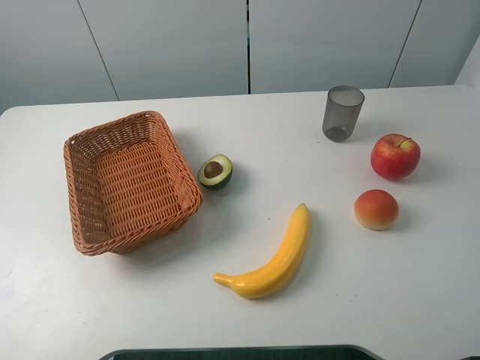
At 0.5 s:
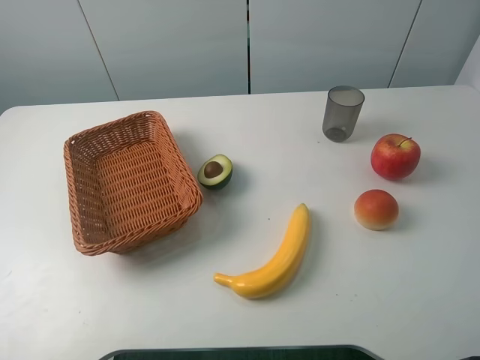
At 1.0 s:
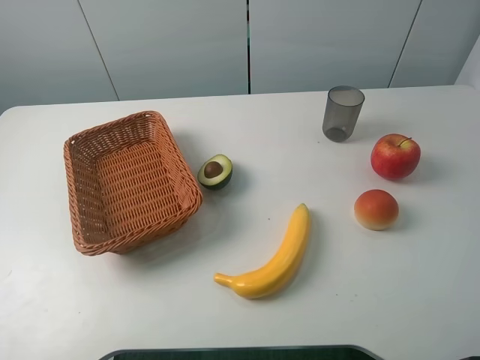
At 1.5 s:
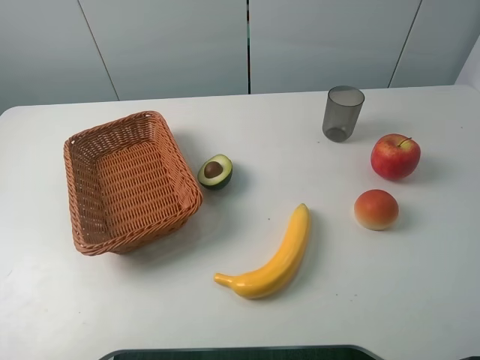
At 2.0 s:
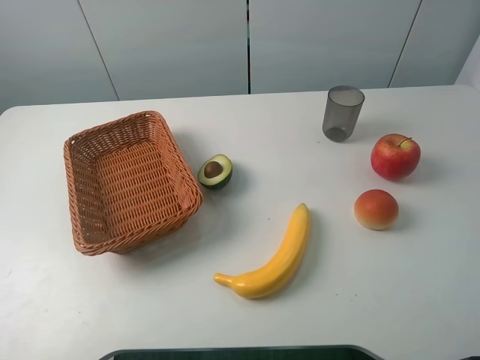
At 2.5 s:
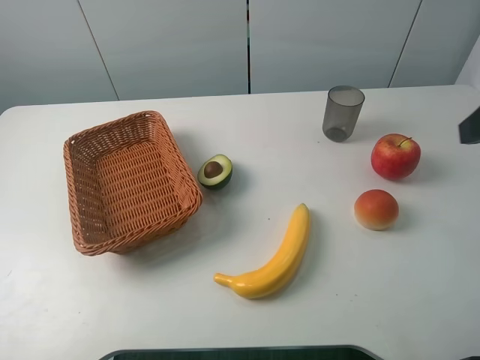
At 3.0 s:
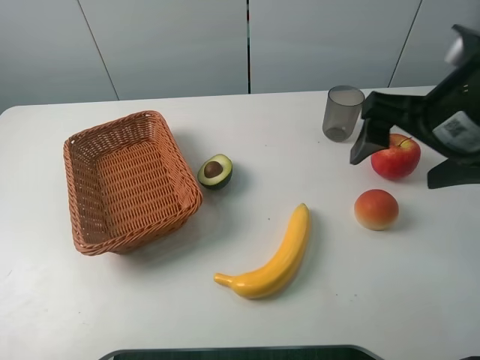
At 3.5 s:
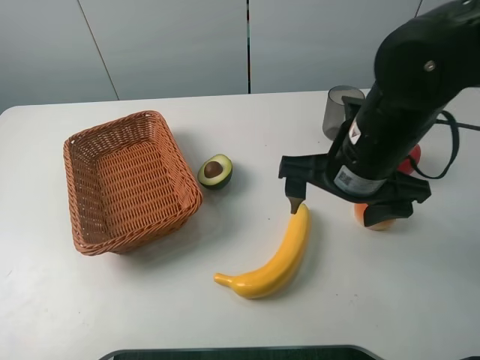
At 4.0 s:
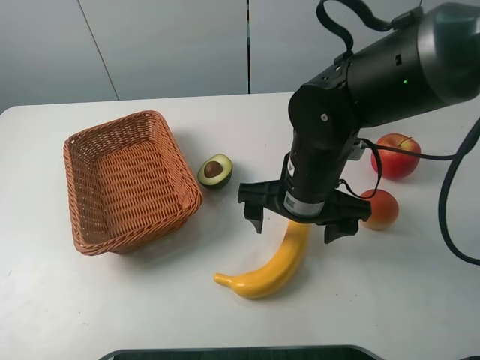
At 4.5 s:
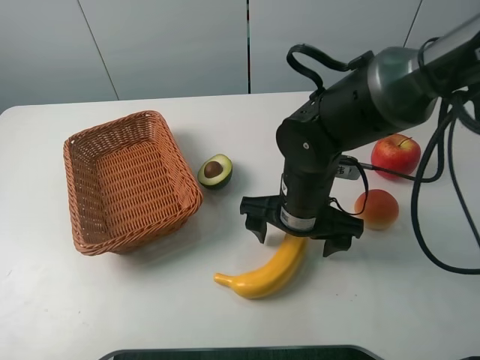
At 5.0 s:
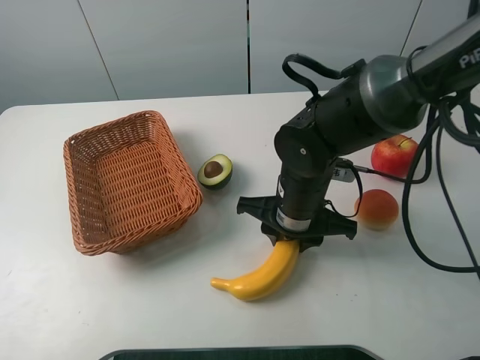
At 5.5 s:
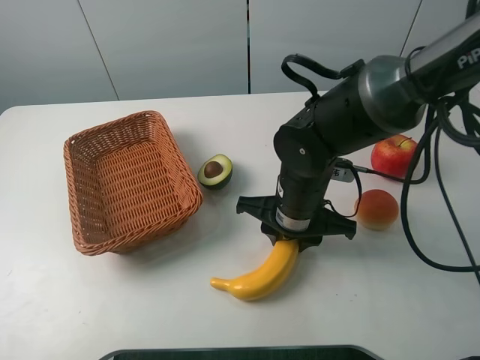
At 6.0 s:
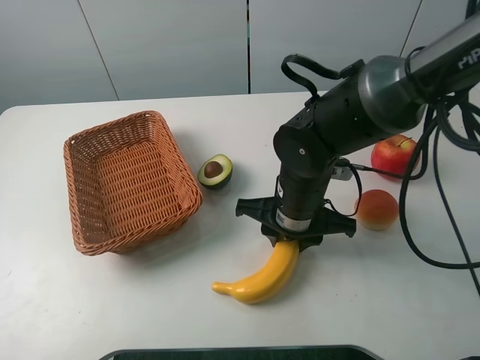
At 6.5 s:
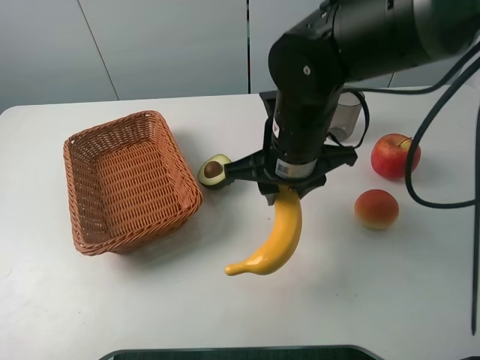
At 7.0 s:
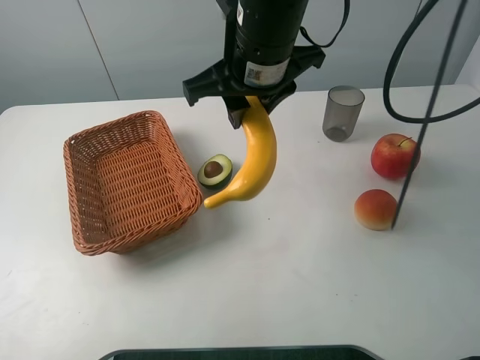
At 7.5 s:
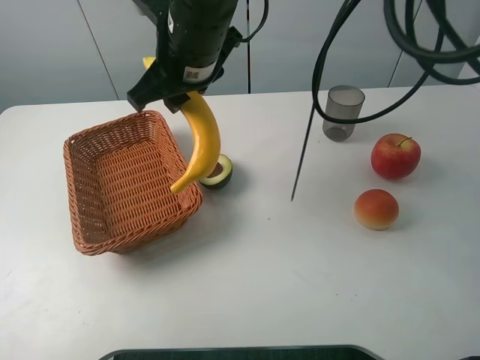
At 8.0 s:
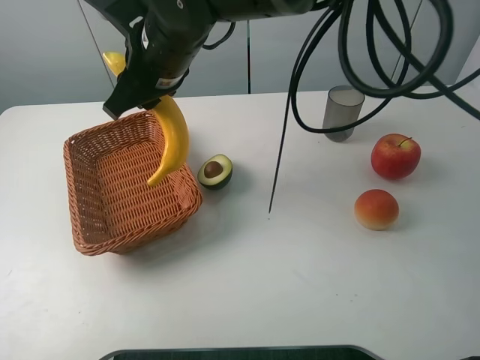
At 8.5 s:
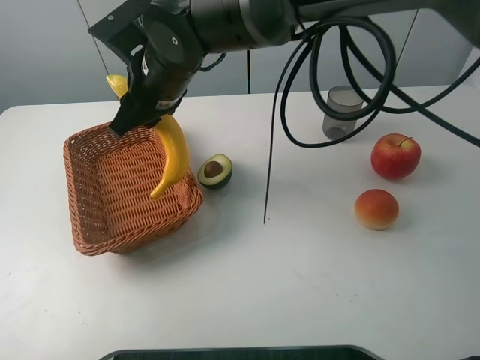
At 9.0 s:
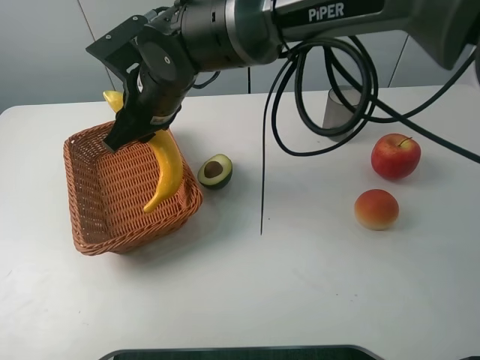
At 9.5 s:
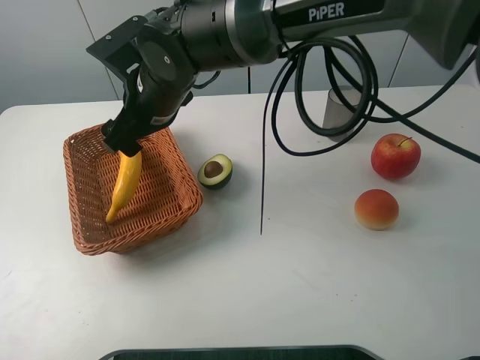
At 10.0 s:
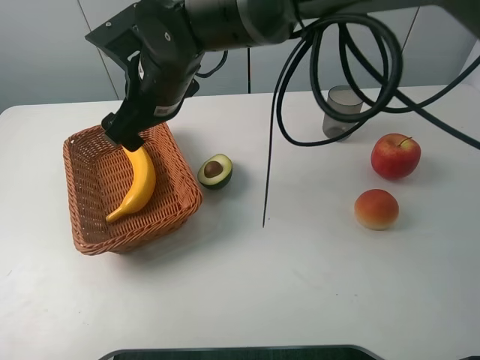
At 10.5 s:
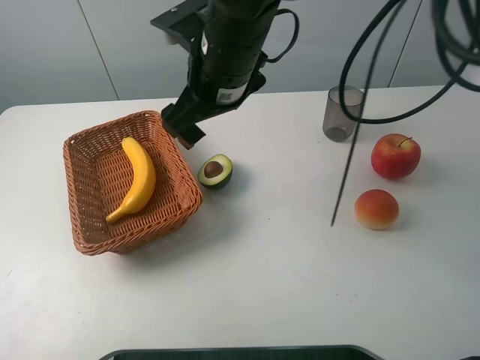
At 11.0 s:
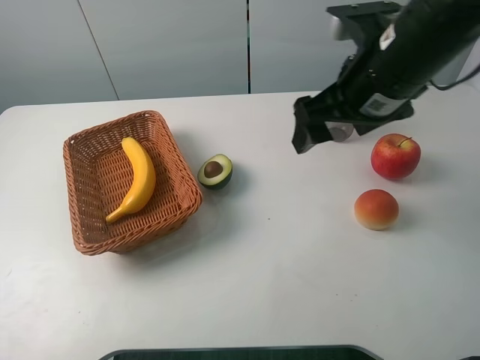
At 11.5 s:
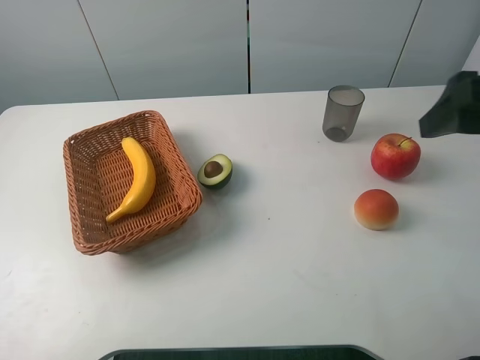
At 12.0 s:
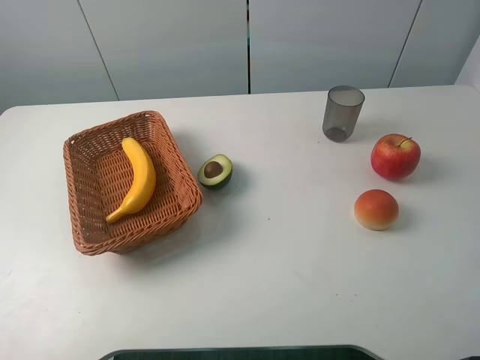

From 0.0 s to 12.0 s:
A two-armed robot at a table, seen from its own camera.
Task of the whole recording: randomly pick up an item from the table and put it in the basket.
Step, from 0.0 s to 6.0 s: Grasp the banana with the right gripper.
Step, from 6.5 s to 10.0 s: Place the banana into the basket with the right gripper.
From 2.0 s to 4.0 s: The right gripper shifts about 35 cm to the left, forward and downward.
From 4.0 s to 6.0 s: The right gripper closes.
From 6.0 s to 8.0 s: The right gripper moves to the left, upward and forward, approximately 20 cm.
From 8.0 s to 10.0 s: The right gripper opens its fingers.
From 10.0 s to 12.0 s: The right gripper shifts roughly 40 cm to the right and backward.

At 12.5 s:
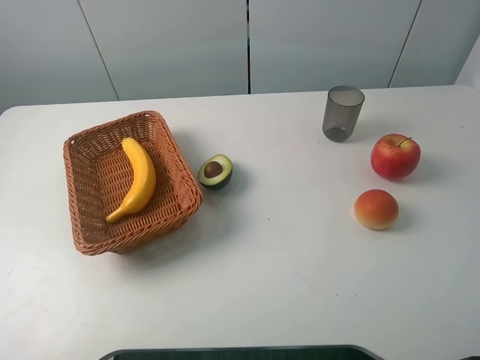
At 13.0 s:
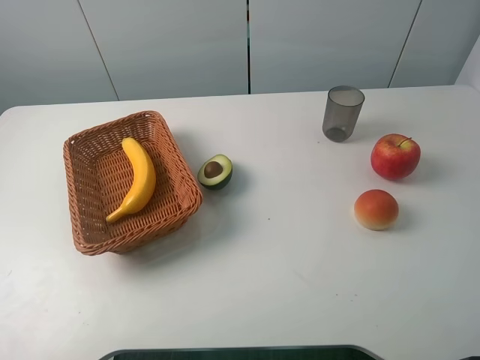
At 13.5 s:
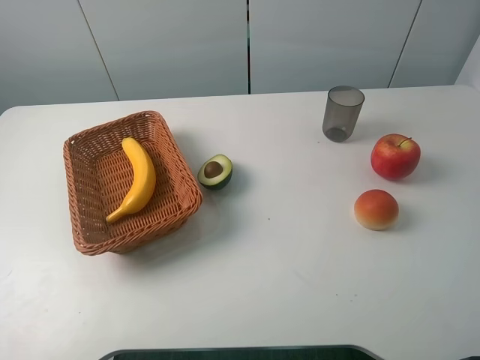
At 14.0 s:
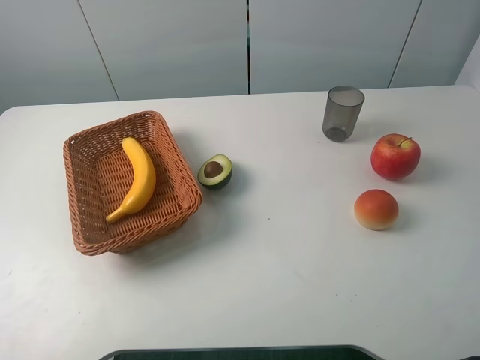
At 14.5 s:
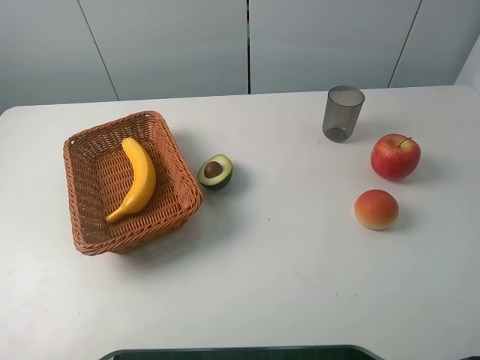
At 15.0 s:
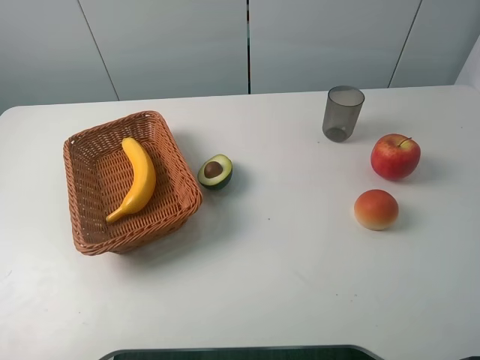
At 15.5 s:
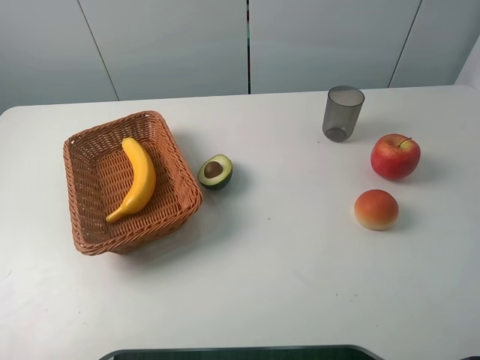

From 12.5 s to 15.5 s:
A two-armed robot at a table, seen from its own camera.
Task of the whole recording: randomly pick up an item from the table and put it in the basket.
From 14.0 s to 15.5 s: Neither gripper changes place.

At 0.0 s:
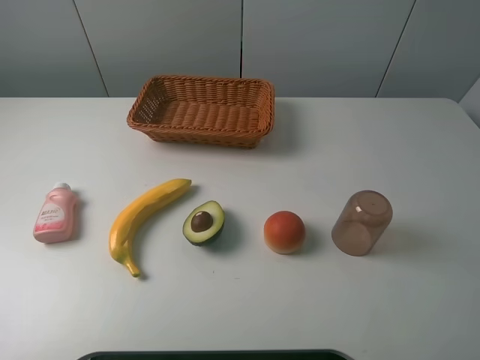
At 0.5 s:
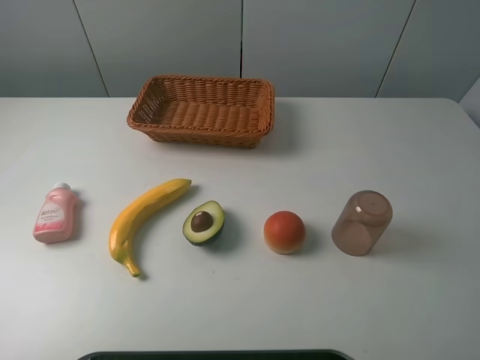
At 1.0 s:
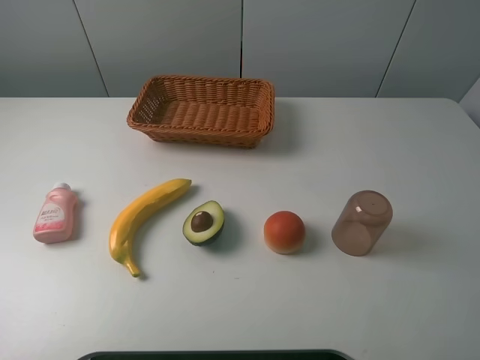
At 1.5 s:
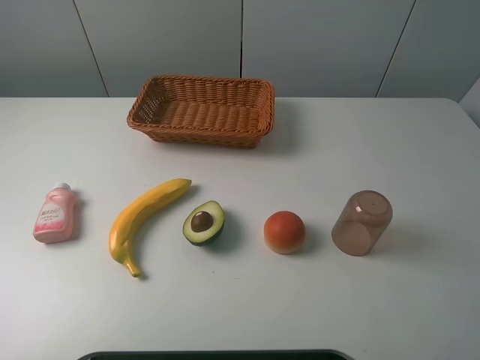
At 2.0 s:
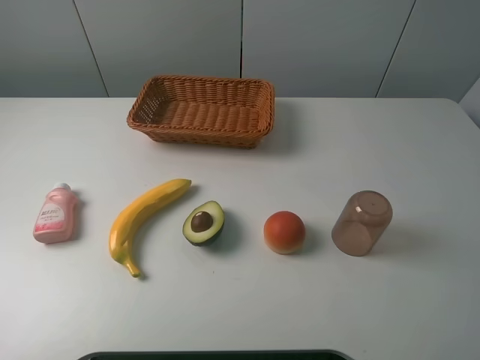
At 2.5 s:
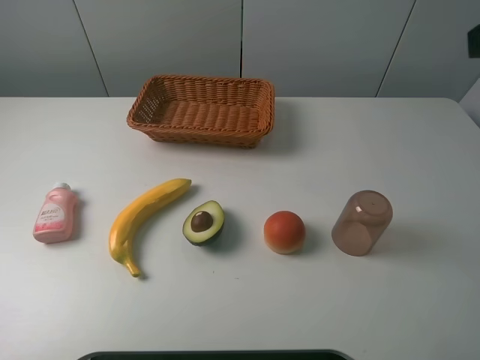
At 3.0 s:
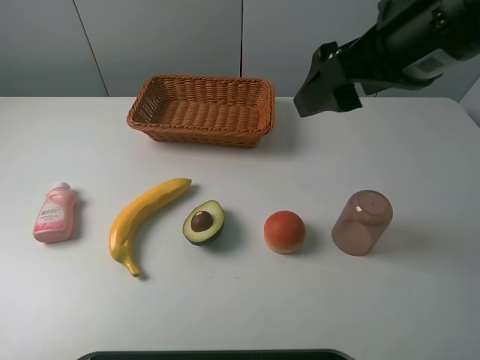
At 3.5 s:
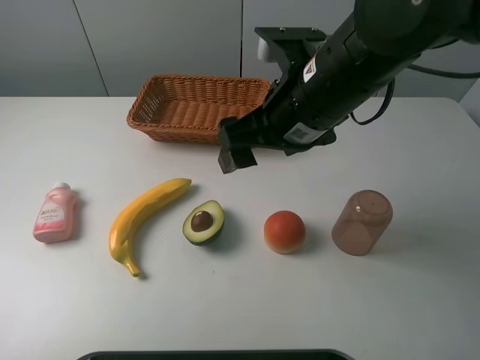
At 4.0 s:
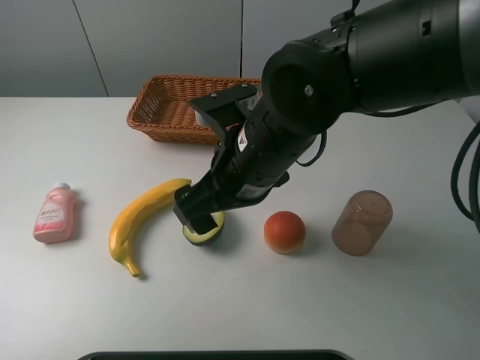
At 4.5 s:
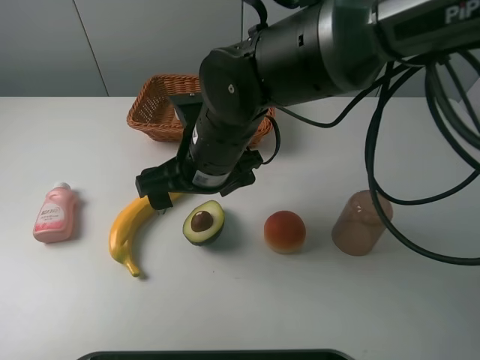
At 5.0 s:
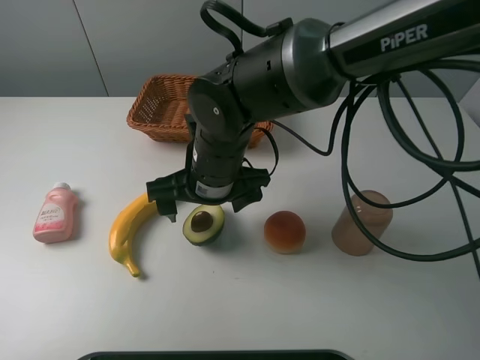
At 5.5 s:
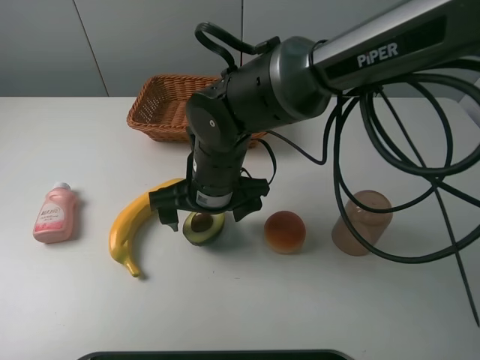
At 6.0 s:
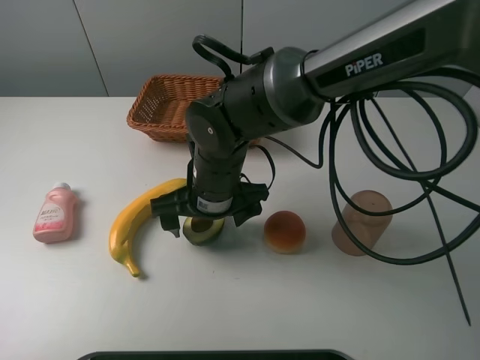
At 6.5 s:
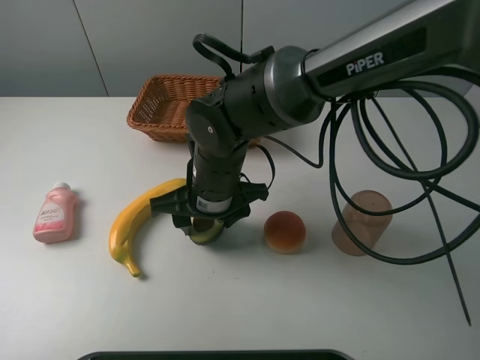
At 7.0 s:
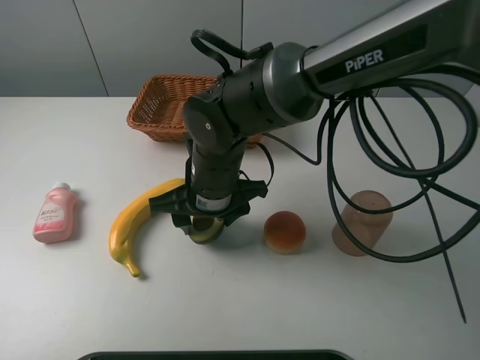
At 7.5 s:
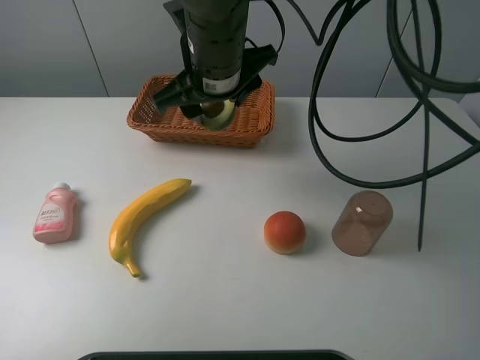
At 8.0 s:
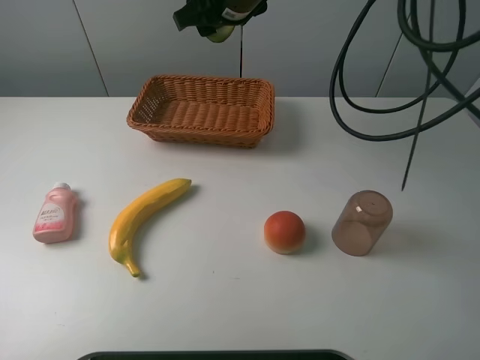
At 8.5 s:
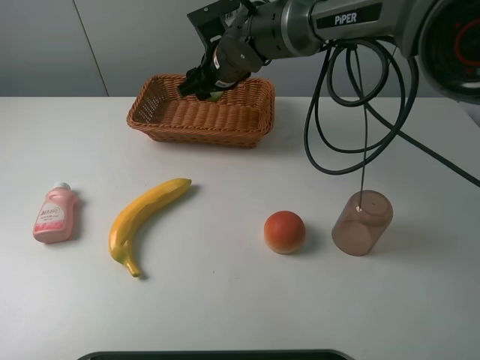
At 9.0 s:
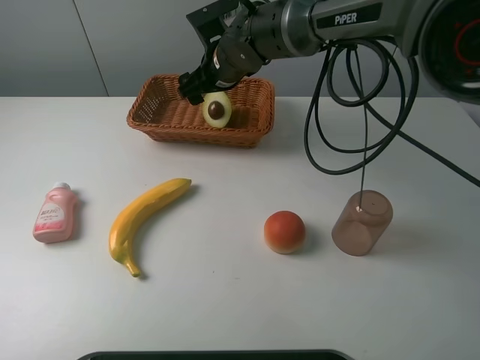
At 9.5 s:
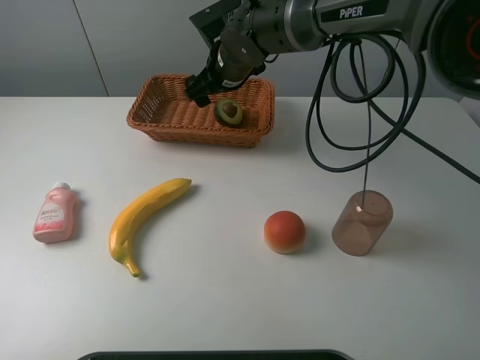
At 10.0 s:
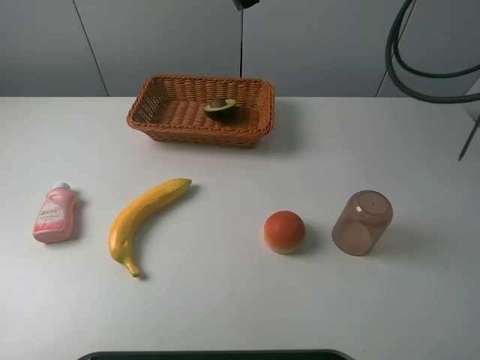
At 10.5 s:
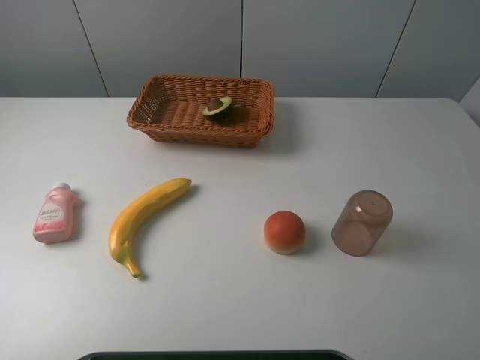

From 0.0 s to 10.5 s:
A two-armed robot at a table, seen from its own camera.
Task of the whole recording: randomly pick up an item from the table and put it in the basket.
Step, from 0.0 s to 6.5 s: Grasp the avocado with the right gripper.
Step, from 7.0 s to 9.5 s: Place the avocado into the basket with the right gripper.
From 2.0 s to 4.0 s: The right gripper goes some 35 cm to the left, forward and downward.
From 4.0 s to 6.5 s: The right gripper goes approximately 10 cm downward, and closes.
From 6.5 s to 8.5 s: The right gripper travels forward by some 20 cm.
From 8.5 s to 10.5 s: The right gripper heads upward, to the right and backward, covering approximately 40 cm, and opens up.
